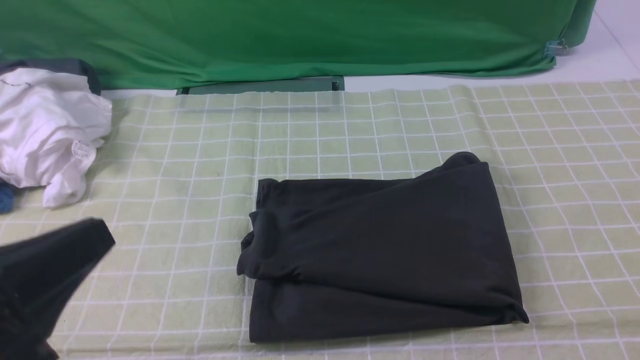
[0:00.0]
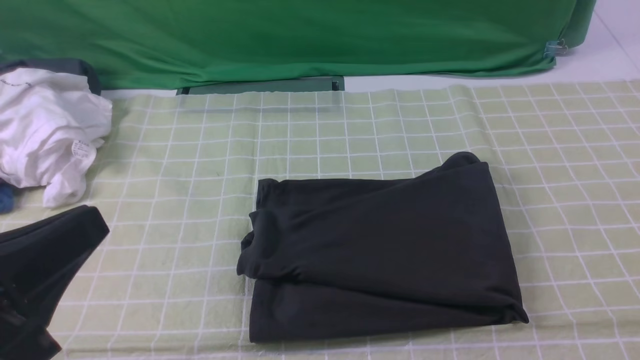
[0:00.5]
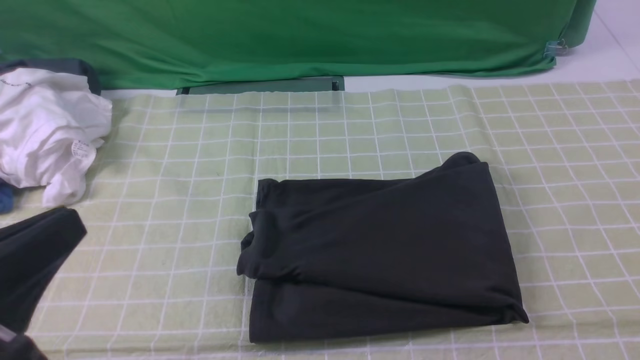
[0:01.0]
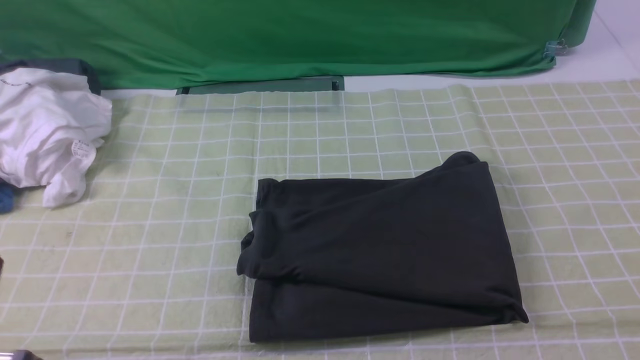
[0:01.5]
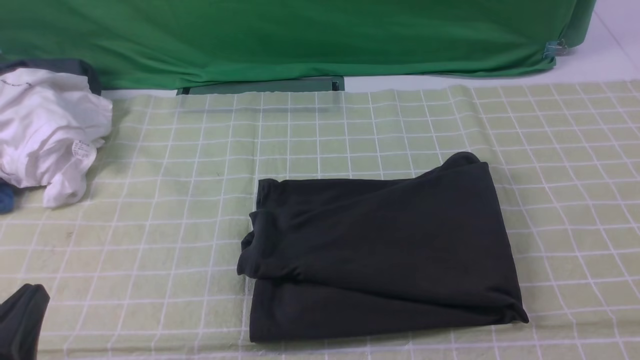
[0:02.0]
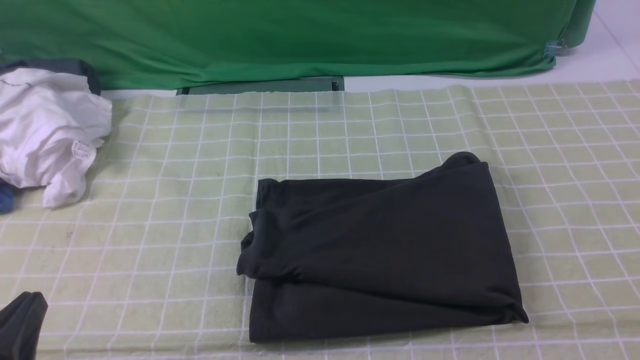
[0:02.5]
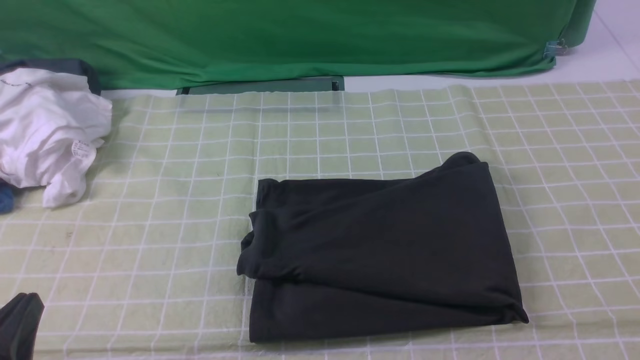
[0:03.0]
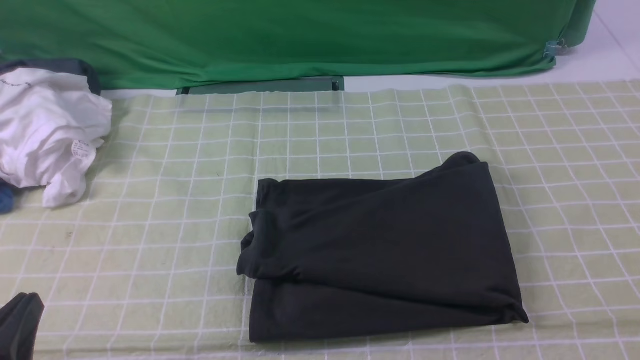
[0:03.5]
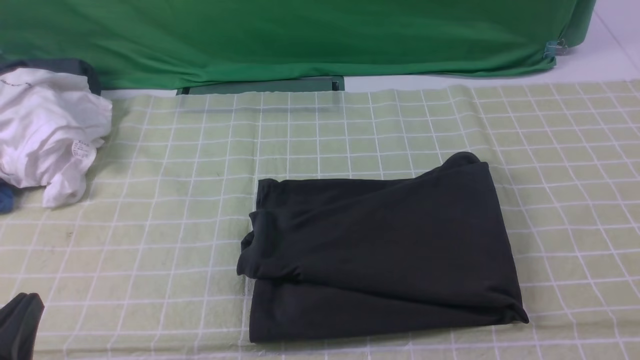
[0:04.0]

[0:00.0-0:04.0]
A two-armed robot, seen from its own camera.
0:00.0 to 0:02.0: The left gripper moves downward, approximately 10 cm.
0:02.0 to 0:04.0: Both grippers stay about where they are.

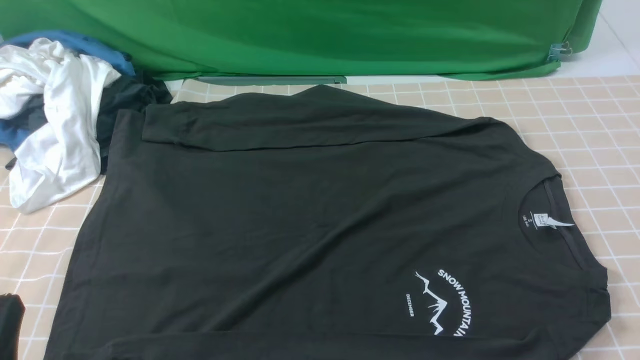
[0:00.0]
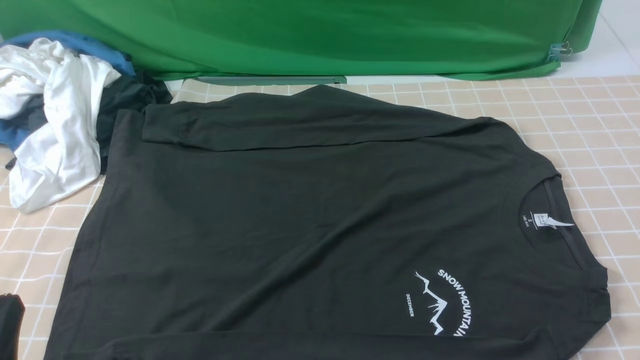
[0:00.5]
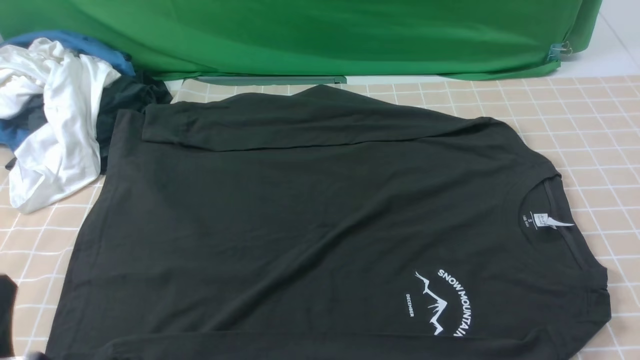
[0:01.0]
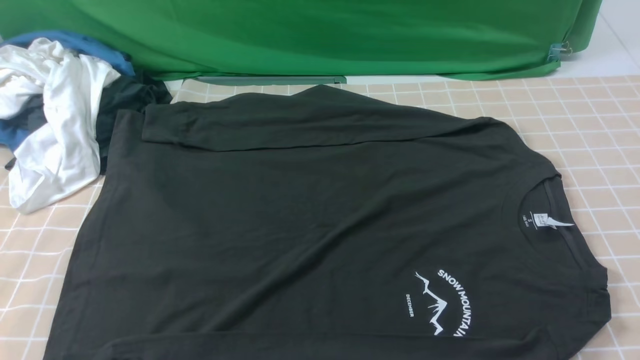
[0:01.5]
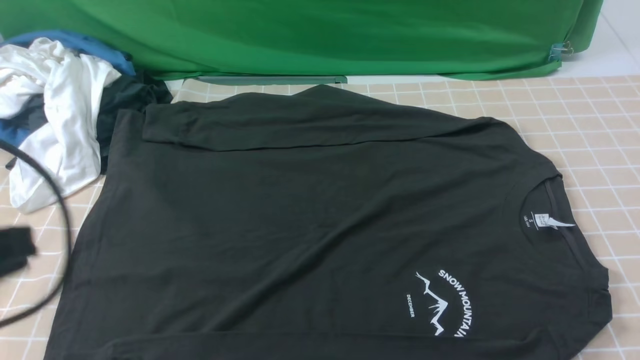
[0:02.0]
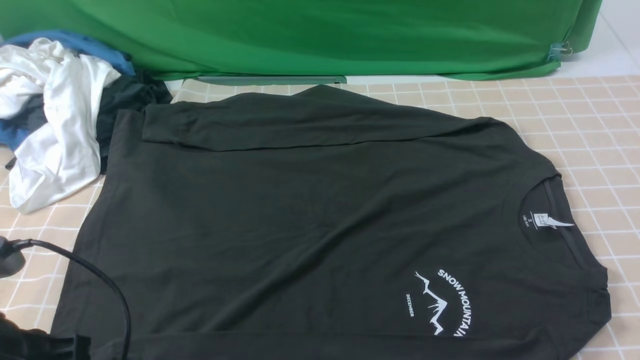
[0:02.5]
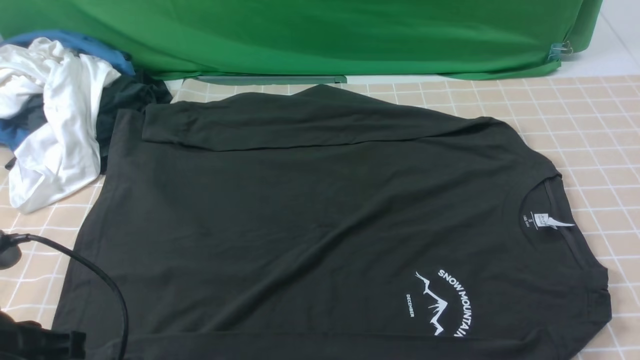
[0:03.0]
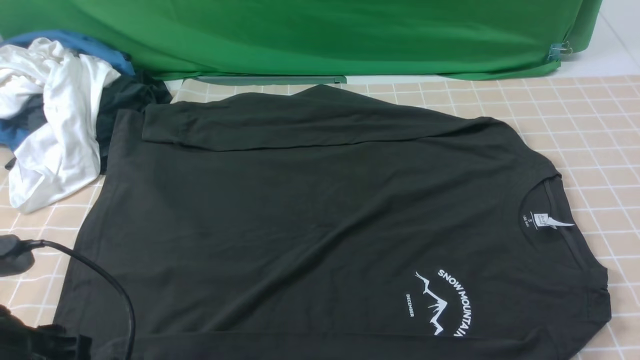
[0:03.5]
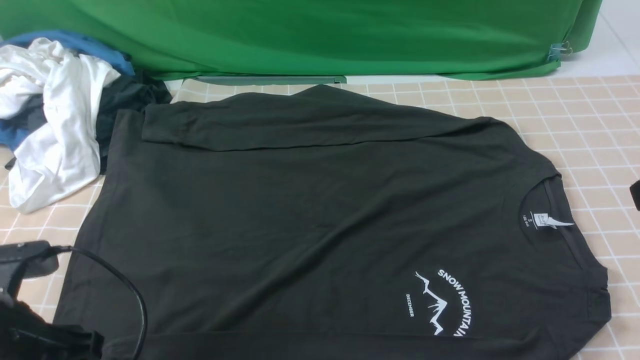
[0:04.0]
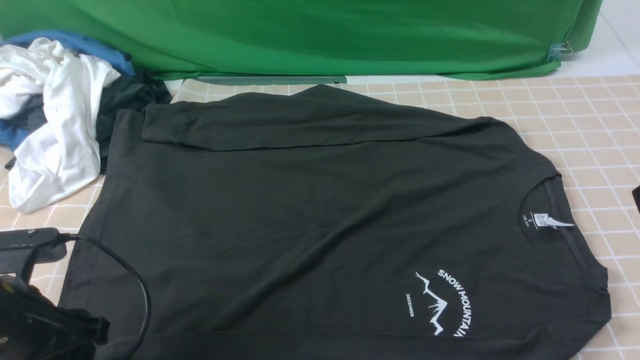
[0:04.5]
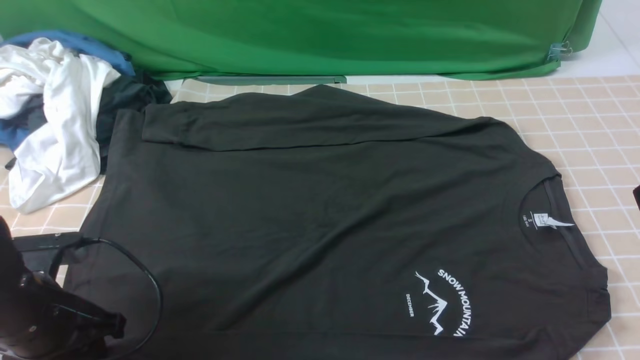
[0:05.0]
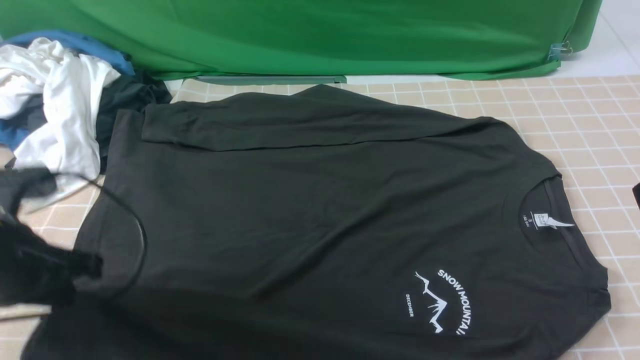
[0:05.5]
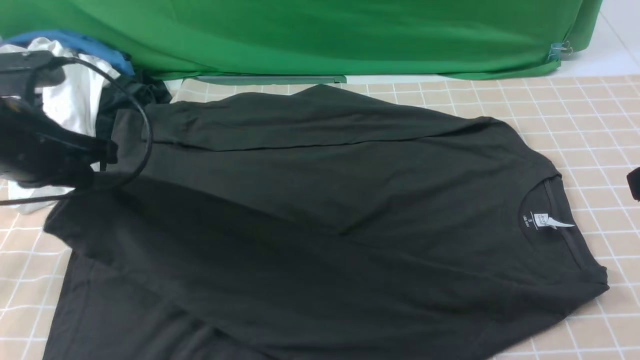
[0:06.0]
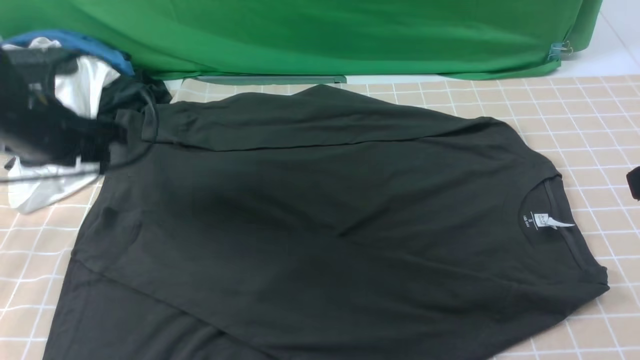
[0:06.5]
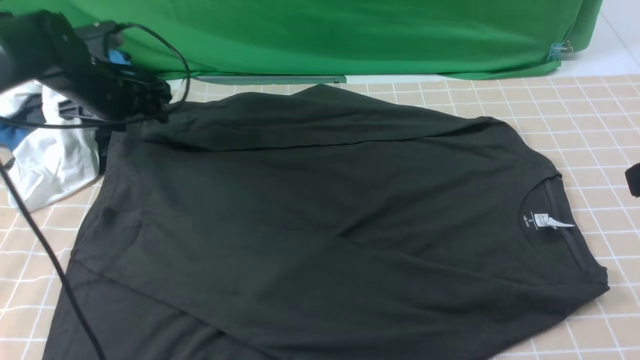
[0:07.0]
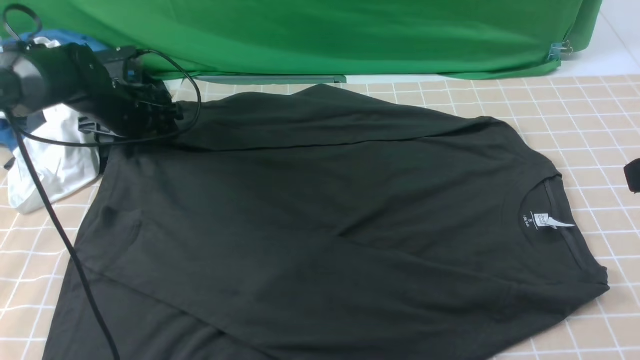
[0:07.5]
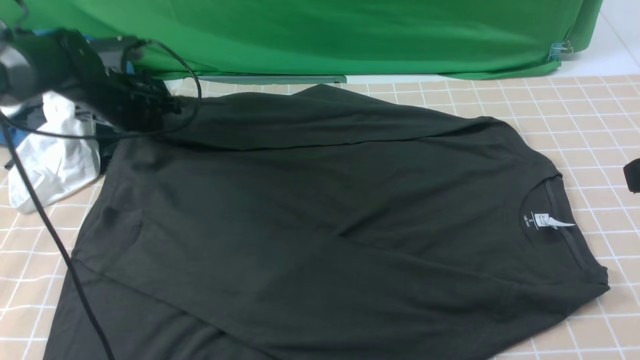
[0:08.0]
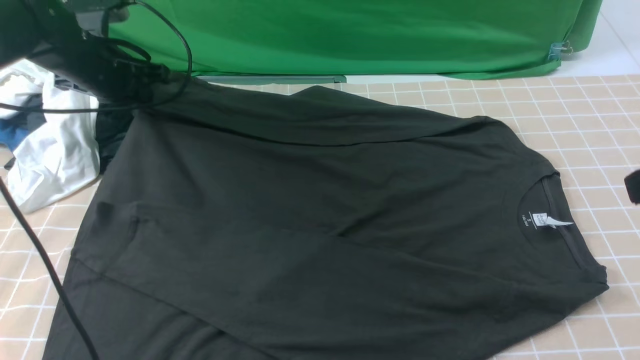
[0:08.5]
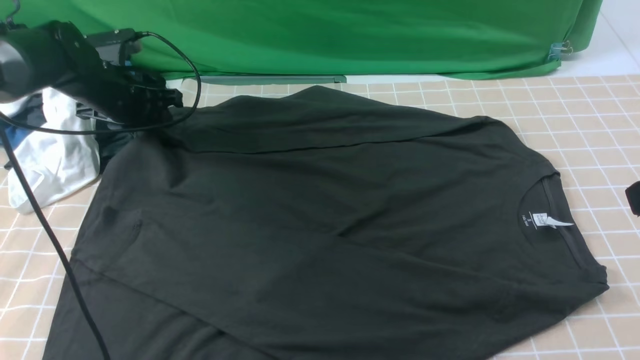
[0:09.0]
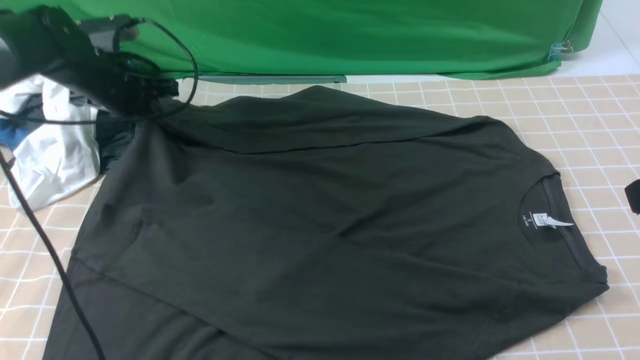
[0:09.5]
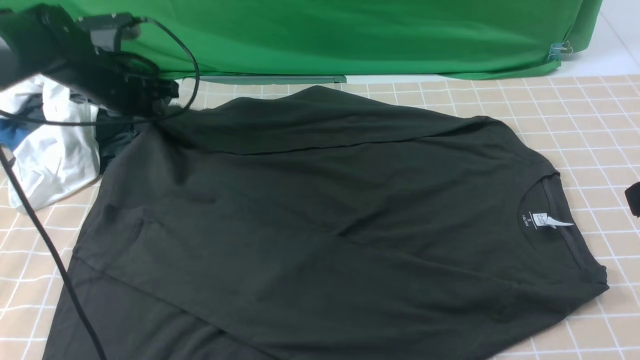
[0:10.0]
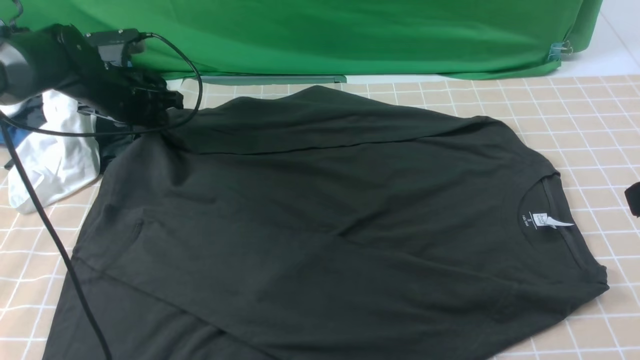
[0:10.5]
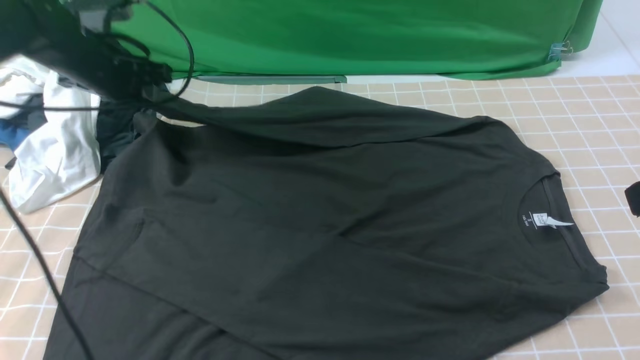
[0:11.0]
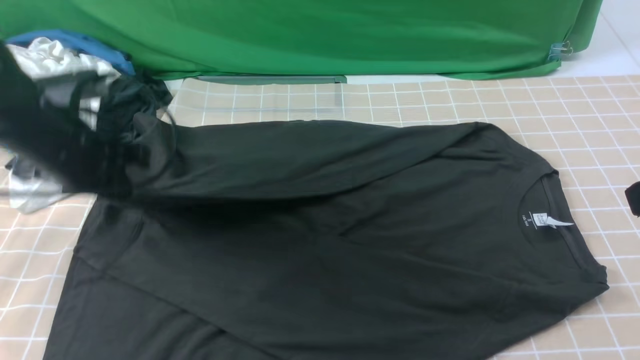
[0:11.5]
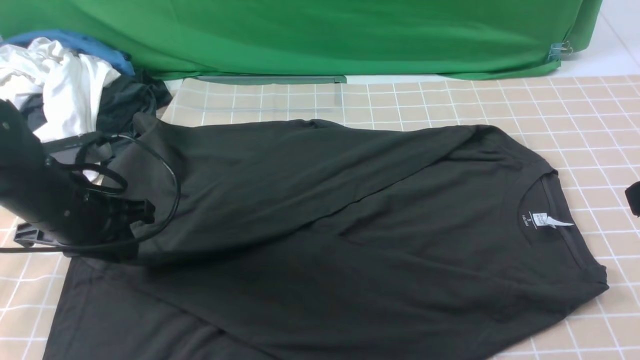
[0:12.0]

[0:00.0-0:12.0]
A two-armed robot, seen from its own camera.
Step, 0:00.0 to 0:05.0: use the left arm to clamp the cuff closest to it.
Step, 0:05.5 to 0:06.0: use the left arm to drag and place the cuff at the centered position on the left edge of the fabric.
Step, 0:06.5 to 0:10.5: use the left arm to clamp the cuff farthest from it.
0:00.0 to 0:02.0: The left gripper travels upward and forward by approximately 15 cm.
0:02.0 to 0:04.0: The left gripper heads downward, covering about 10 cm, and opens up.
0:04.0 to 0:06.0: The left gripper shifts about 15 cm forward and upward, and closes up.
0:06.0 to 0:08.0: The left gripper shifts about 20 cm forward and downward, and opens, then closes again.
0:08.0 to 0:10.0: The grippers stay close to where they were, moving slightly.
0:10.0 to 0:12.0: The left gripper heads backward, covering some 15 cm.

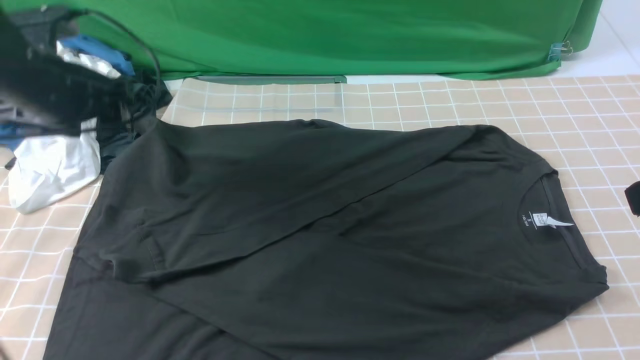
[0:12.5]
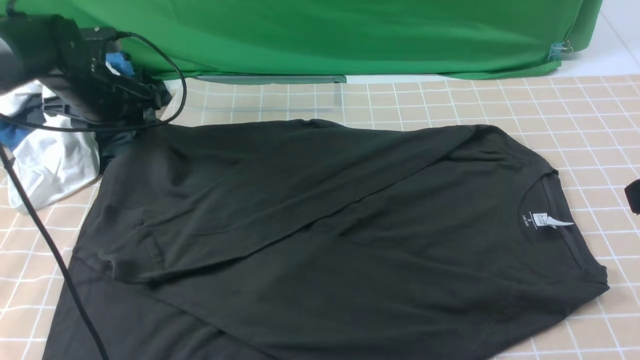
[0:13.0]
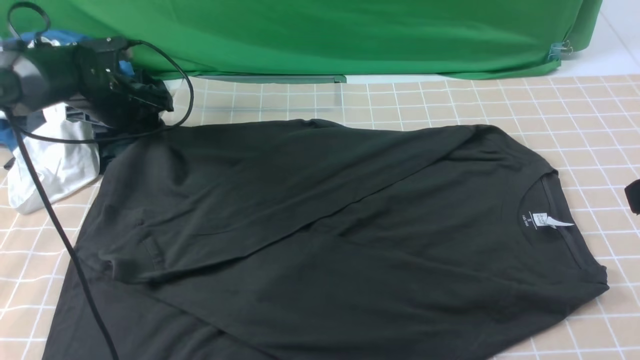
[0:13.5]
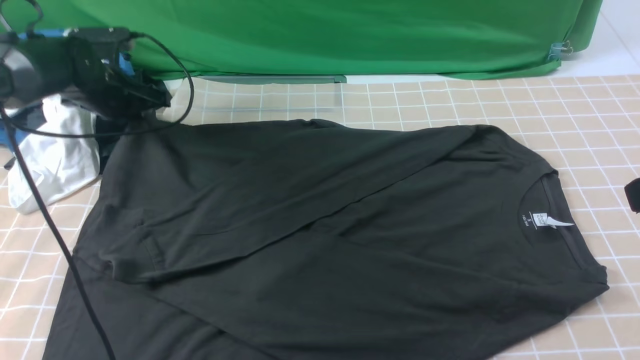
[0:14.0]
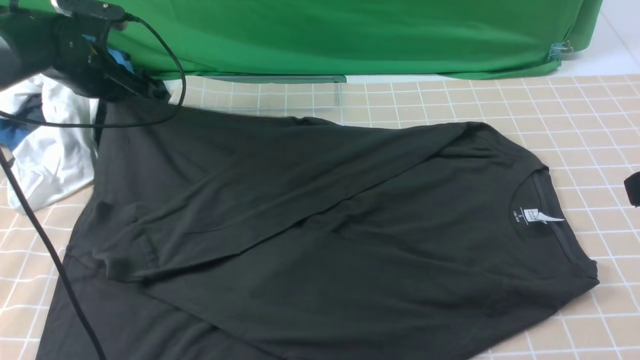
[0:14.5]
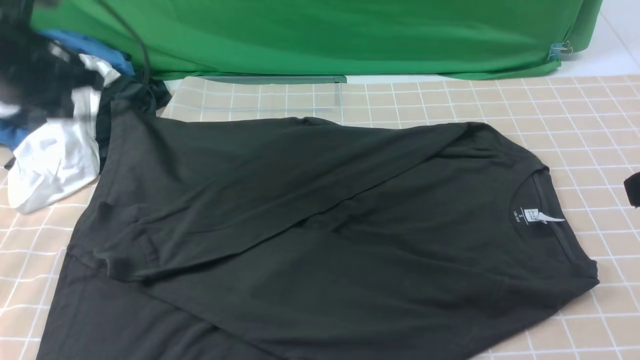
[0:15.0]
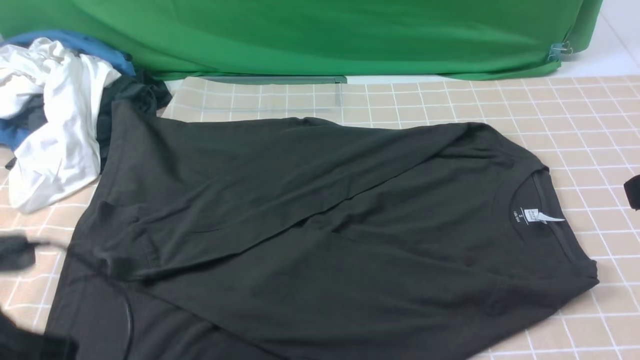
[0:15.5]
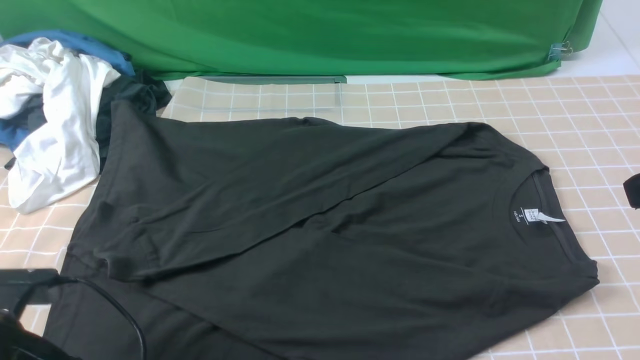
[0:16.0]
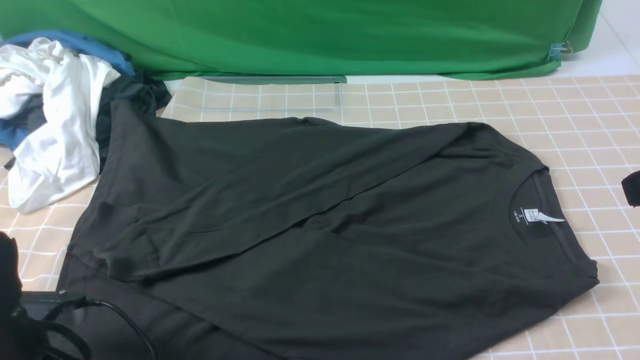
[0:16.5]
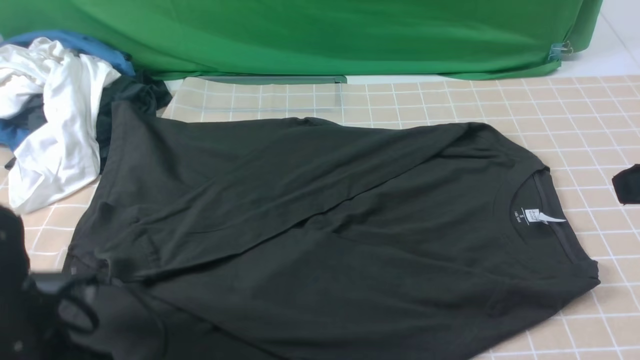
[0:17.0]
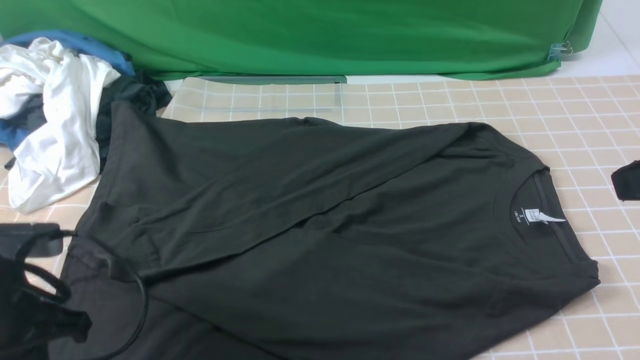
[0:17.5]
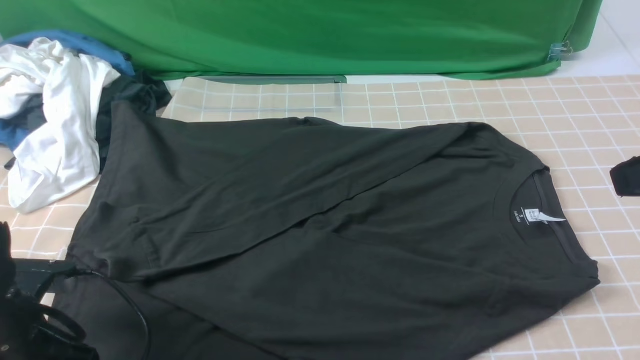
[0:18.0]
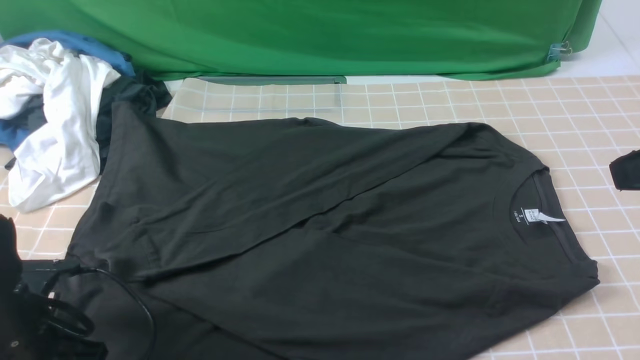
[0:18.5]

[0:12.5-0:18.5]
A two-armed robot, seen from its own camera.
0:12.5 to 0:14.5: The left gripper goes about 10 cm forward, and closes.
0:14.5 to 0:16.5: The left gripper moves backward, about 30 cm, and opens up.
0:16.5 to 0:18.5: The left gripper closes its fingers.
